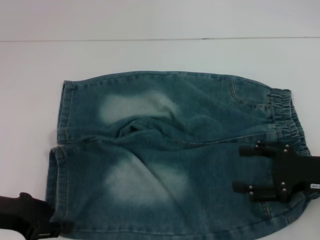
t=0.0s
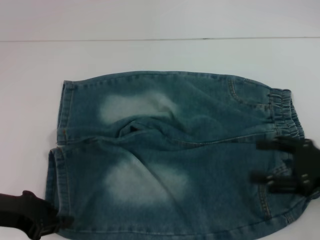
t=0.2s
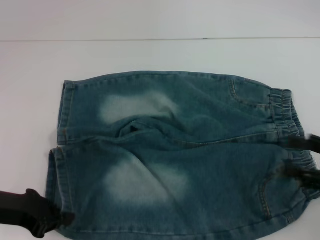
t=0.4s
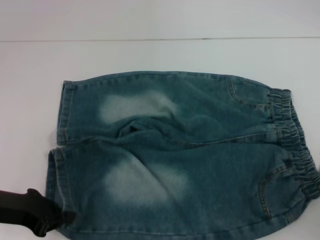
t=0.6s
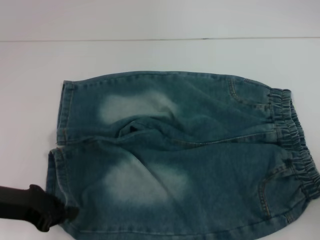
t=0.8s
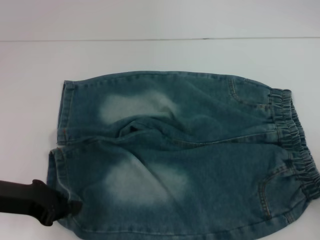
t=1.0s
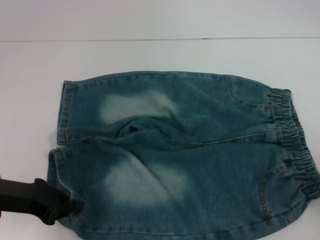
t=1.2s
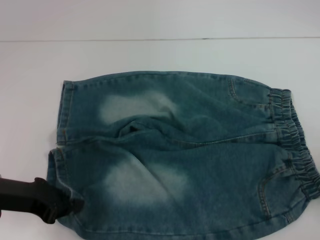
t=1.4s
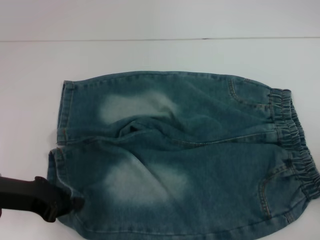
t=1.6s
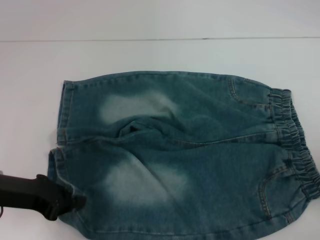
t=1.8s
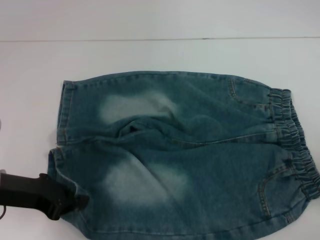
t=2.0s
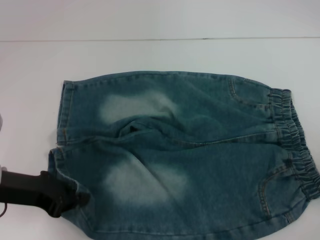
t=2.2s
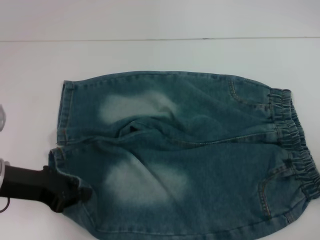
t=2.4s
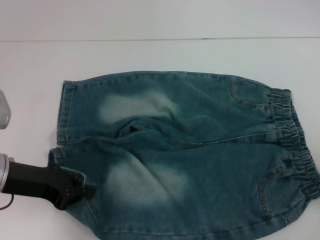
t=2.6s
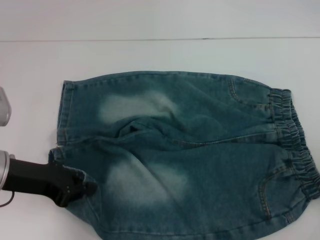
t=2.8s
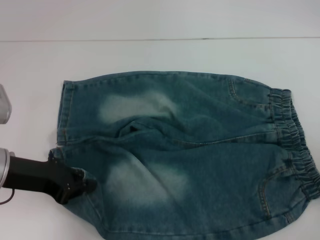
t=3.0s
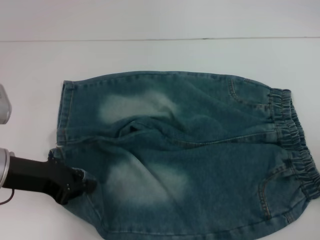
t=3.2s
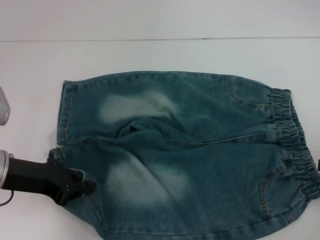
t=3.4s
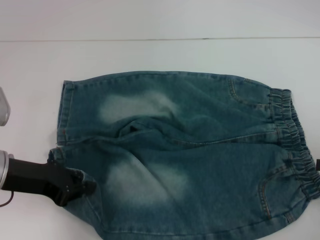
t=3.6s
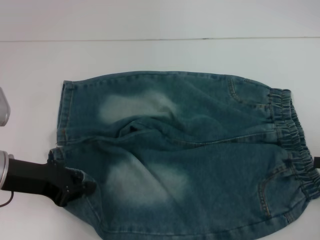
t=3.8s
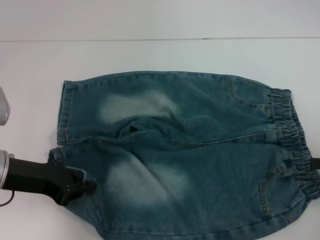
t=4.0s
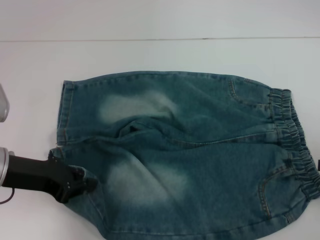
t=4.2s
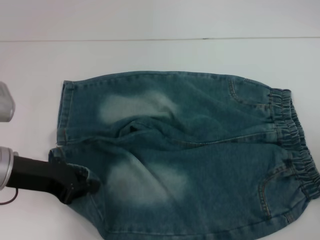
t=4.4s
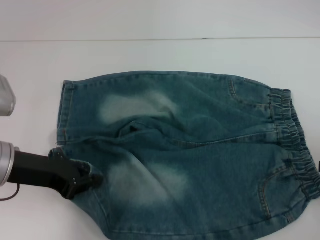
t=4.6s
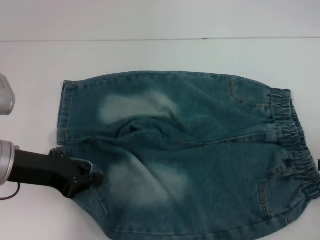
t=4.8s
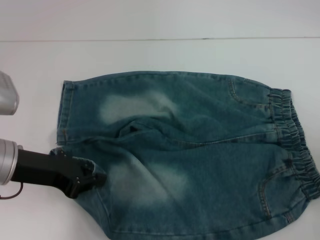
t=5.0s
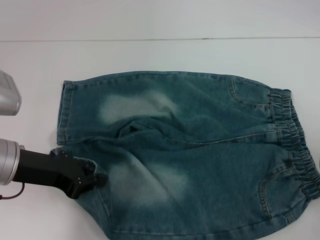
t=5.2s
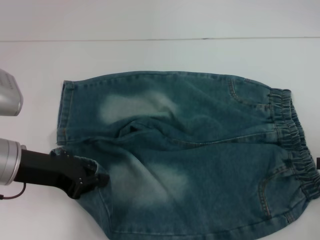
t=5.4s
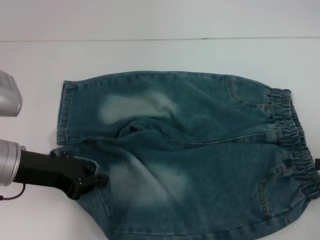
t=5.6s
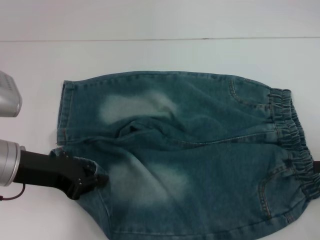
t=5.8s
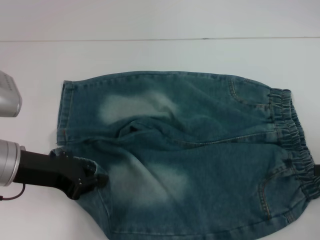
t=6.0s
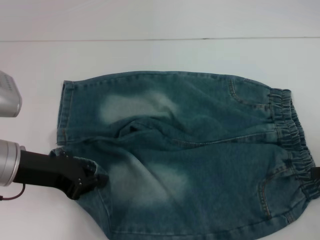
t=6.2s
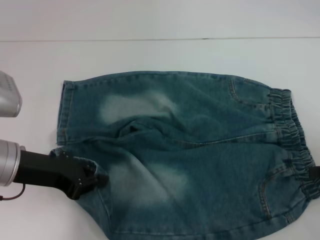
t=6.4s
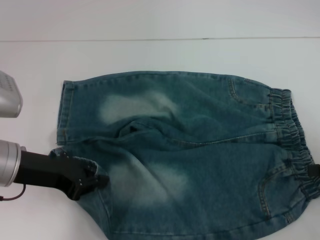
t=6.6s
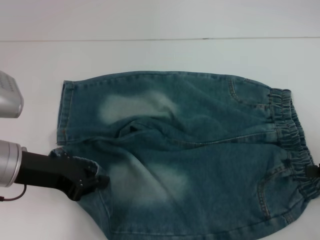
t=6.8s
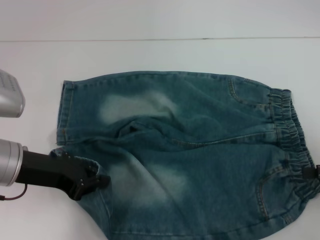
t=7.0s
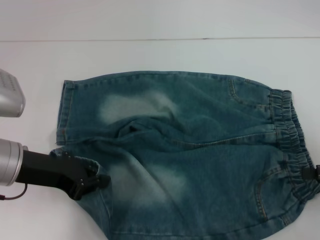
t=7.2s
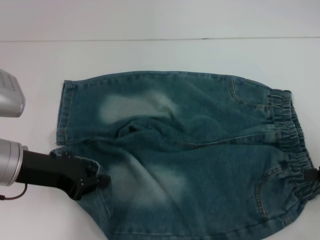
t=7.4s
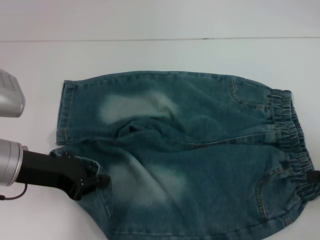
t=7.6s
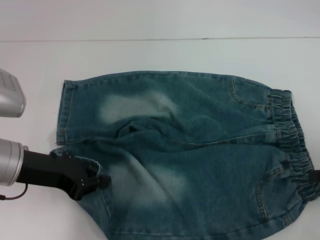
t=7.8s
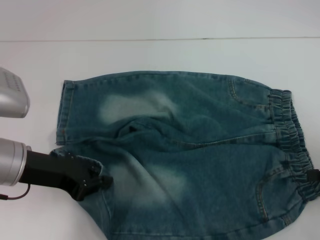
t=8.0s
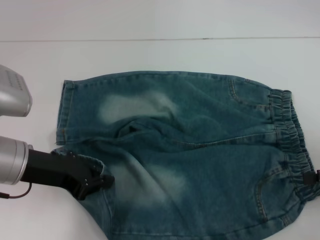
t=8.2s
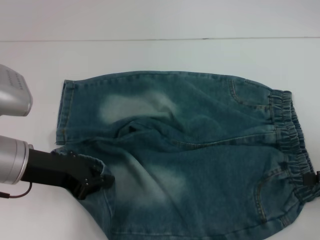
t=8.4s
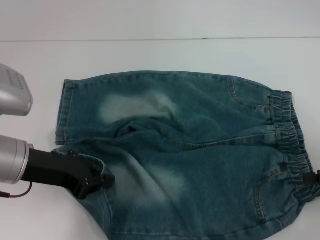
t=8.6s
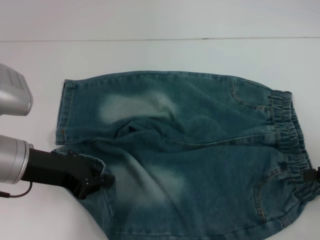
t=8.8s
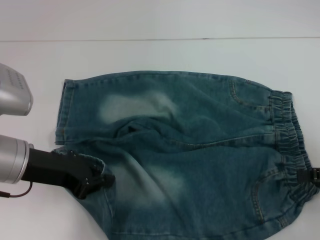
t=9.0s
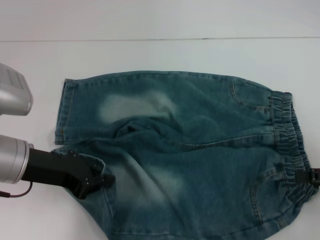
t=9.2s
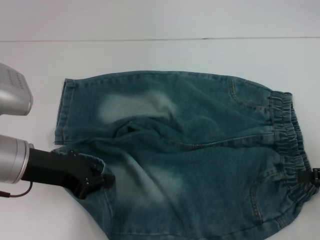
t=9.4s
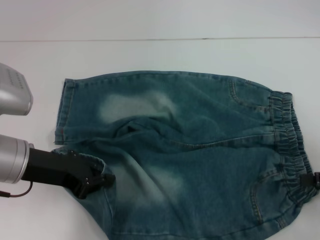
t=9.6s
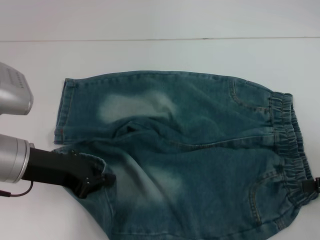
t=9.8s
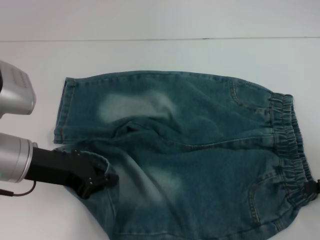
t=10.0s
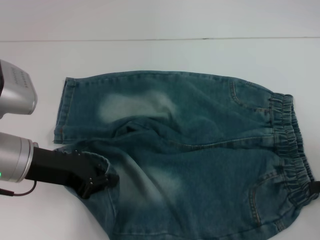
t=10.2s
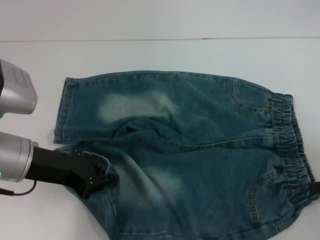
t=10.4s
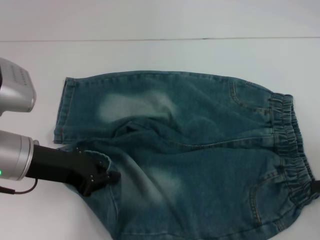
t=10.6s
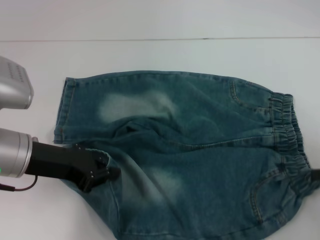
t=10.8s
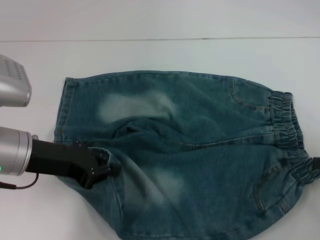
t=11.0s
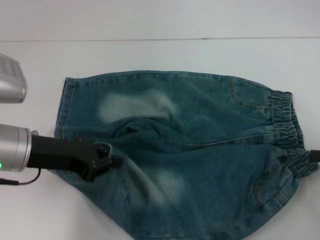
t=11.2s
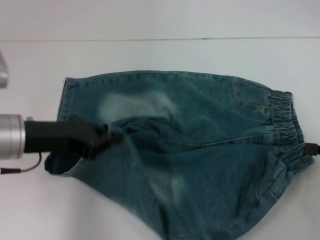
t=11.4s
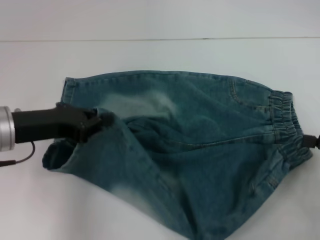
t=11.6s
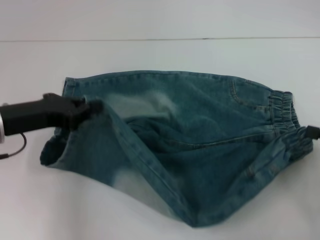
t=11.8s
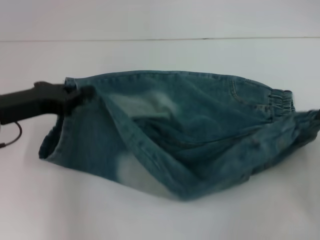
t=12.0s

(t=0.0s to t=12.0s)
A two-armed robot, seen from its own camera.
Step, t=0.4s - t=10.0s: Hold the lower right waistband with your right hand.
t=0.0s - t=1.6s: The right gripper goes about 15 cm to the right. Meanwhile the left gripper closes up.
t=1.6s - t=7.6s: The grippers move only a little.
t=7.6s - t=9.0s: Both grippers stay about where they are.
t=9.0s - t=10.4s: The right gripper closes.

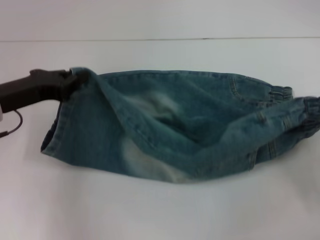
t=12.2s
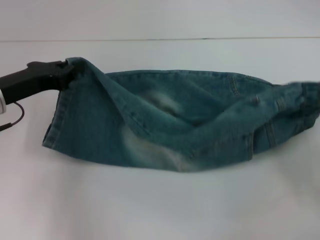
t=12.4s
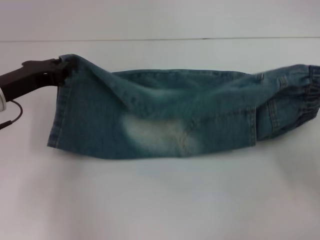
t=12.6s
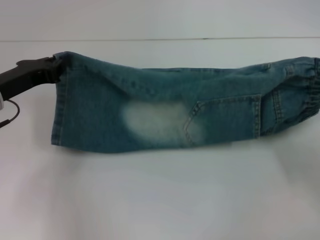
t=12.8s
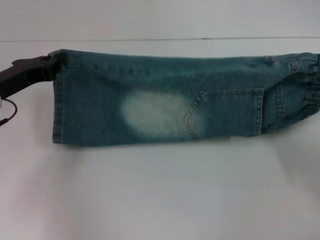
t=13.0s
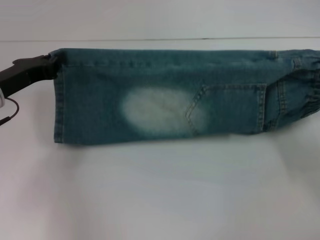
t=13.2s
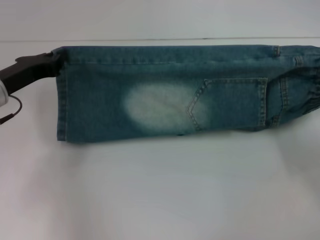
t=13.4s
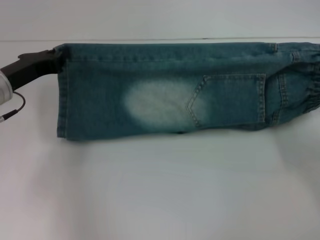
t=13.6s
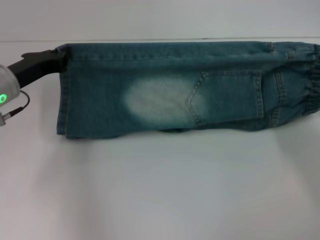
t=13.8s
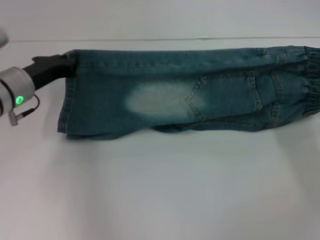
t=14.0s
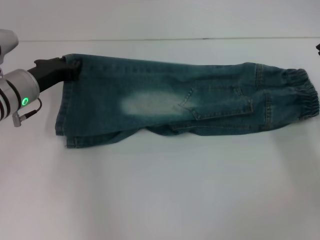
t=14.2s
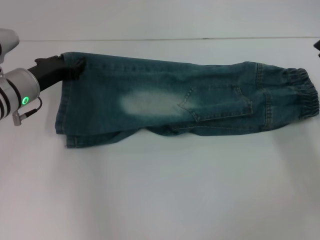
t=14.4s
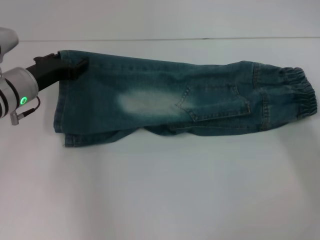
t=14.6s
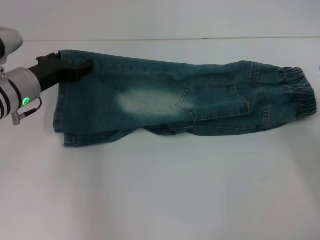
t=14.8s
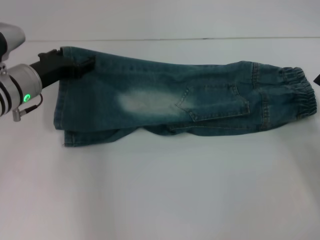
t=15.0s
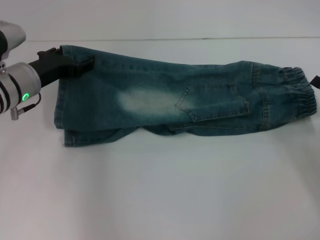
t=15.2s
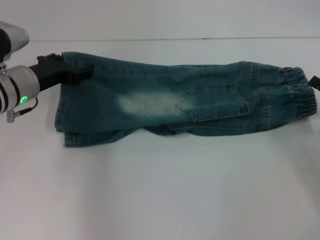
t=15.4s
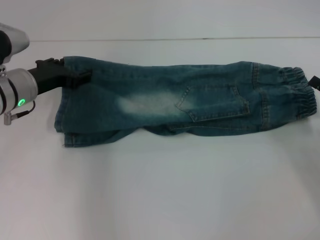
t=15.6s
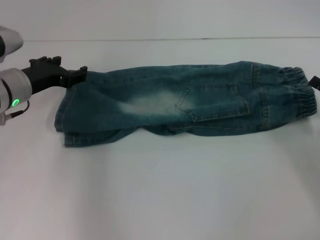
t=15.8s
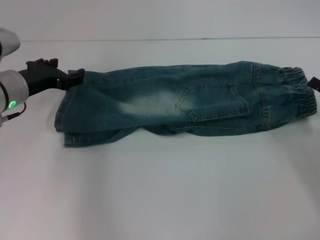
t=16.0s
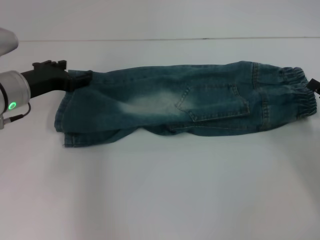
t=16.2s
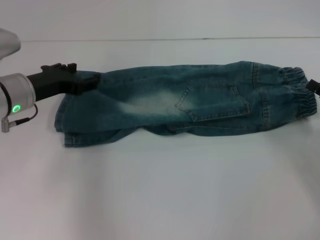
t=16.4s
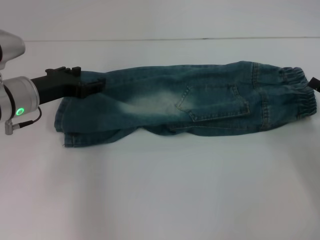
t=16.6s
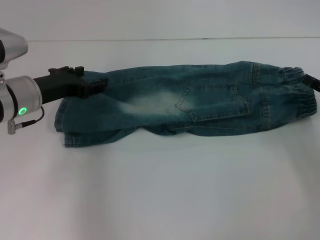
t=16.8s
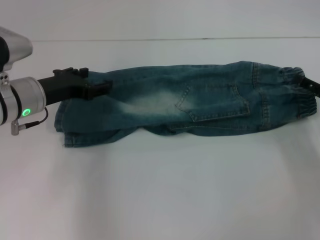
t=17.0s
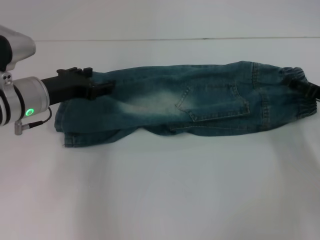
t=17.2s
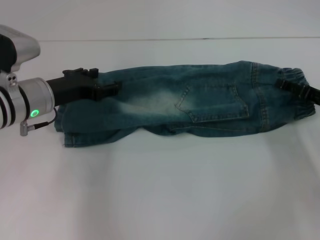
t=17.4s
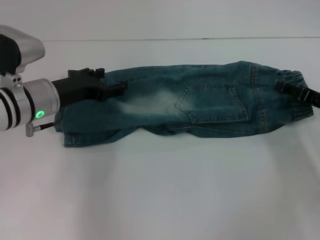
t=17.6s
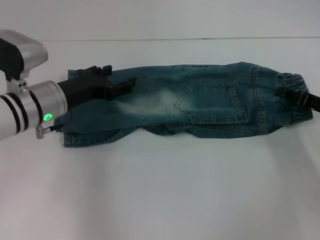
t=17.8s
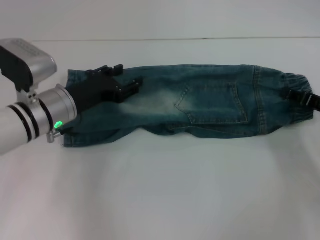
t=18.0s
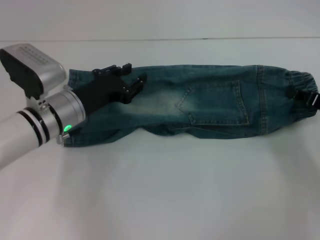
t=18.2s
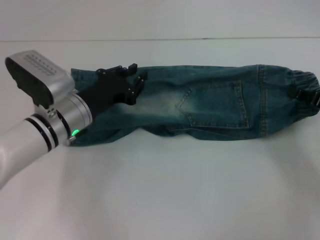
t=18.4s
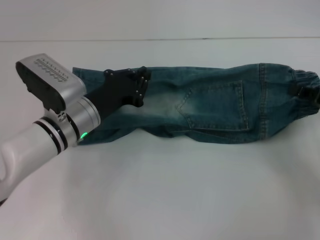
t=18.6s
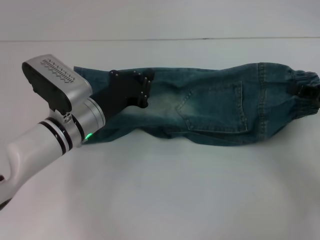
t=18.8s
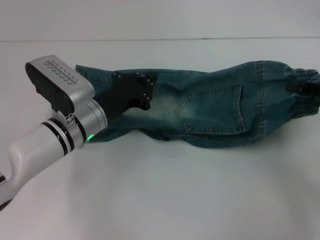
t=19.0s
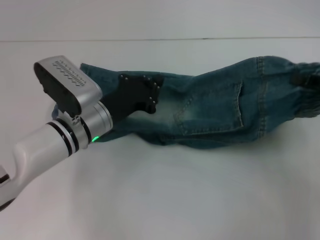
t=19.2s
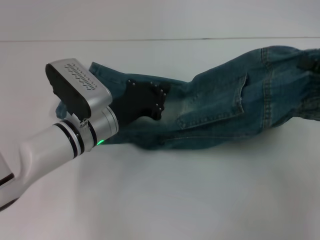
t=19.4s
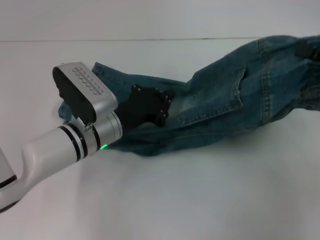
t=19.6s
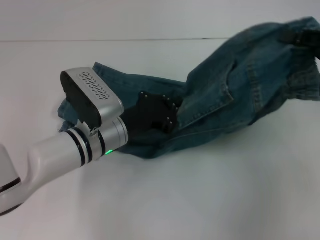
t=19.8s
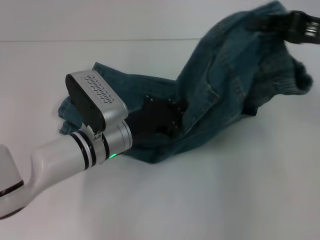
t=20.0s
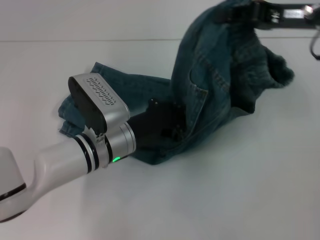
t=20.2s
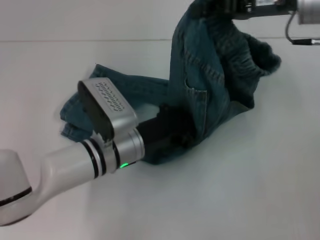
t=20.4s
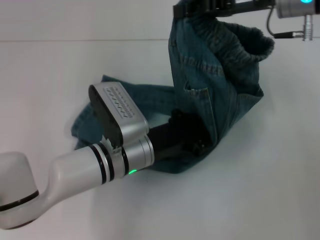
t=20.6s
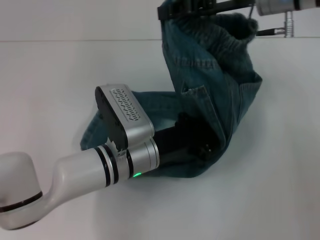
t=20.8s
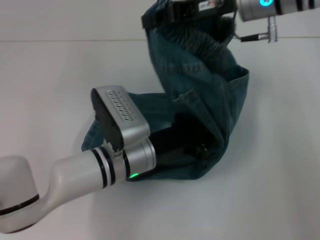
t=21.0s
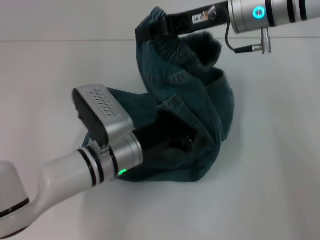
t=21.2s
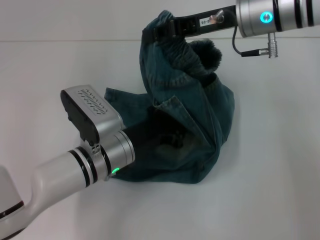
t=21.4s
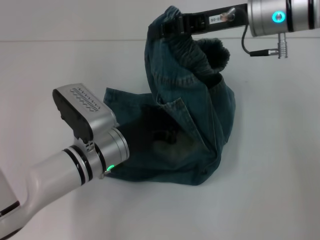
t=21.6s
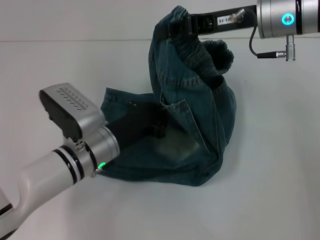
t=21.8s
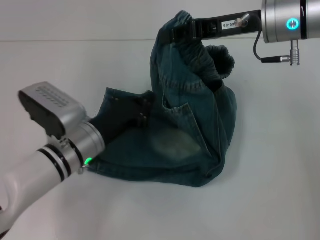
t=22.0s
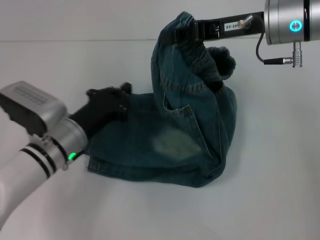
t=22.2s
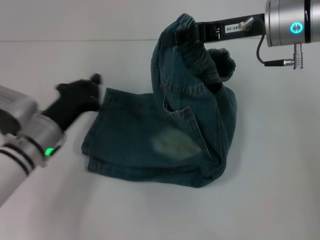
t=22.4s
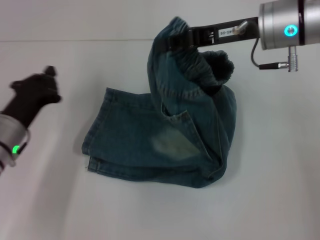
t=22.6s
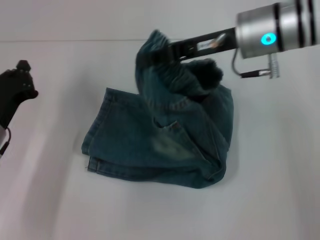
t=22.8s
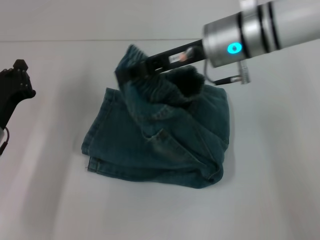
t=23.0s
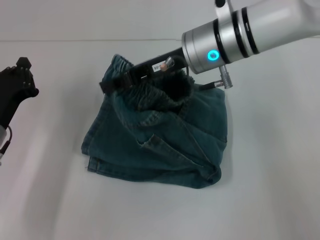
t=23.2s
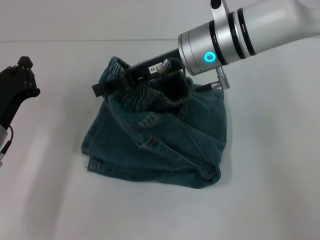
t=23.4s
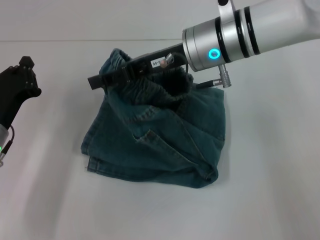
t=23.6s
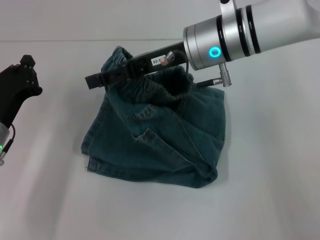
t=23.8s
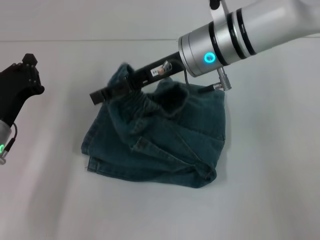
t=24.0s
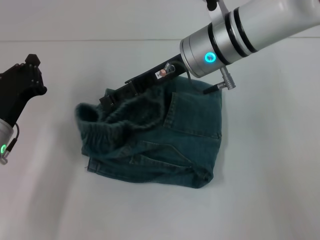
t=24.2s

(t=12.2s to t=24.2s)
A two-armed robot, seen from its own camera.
Step, t=14.2s - t=15.6s: Fold upward with your left hand.
Step, t=15.8s - t=18.0s: Grab the waistband with your right hand.
Step, t=18.2s - t=21.2s: Press the middle of the pants with your left hand.
t=12.2s - t=13.8s: Both grippers travel together forward, about 5 cm.
t=13.8s - t=15.2s: The right gripper opens. The left gripper opens up.
t=15.2s - t=16.6s: The grippers make only small movements.
t=16.6s - t=18.2s: The left gripper is displaced to the right by approximately 5 cm. Meanwhile the right gripper closes up.
t=18.2s - t=19.8s: The right gripper is displaced upward by some 10 cm, while the left gripper shifts some 5 cm to the right, and closes.
t=19.8s - t=21.2s: The right gripper heads to the left and forward, covering some 20 cm.
t=21.2s - t=22.6s: The left gripper goes approximately 15 cm to the left.
t=22.6s - t=24.2s: The right gripper moves to the left, approximately 10 cm, and opens.
